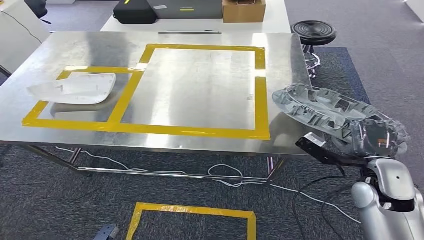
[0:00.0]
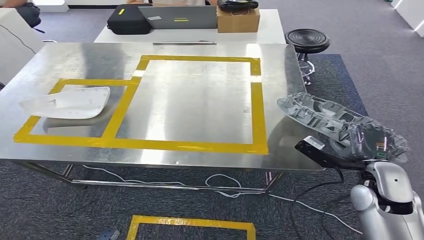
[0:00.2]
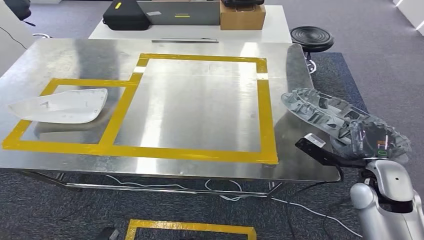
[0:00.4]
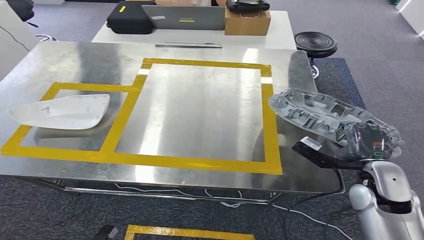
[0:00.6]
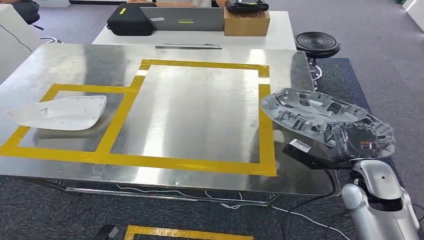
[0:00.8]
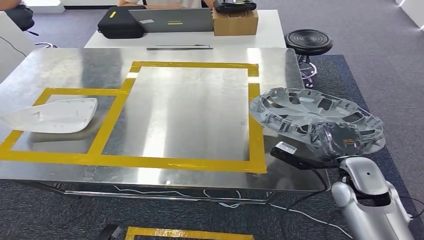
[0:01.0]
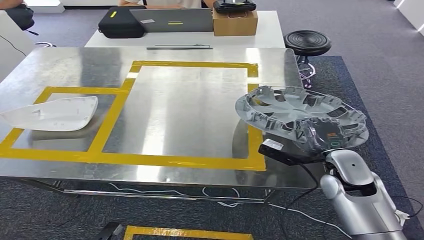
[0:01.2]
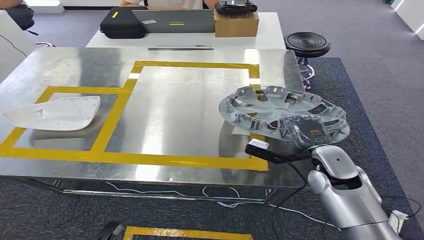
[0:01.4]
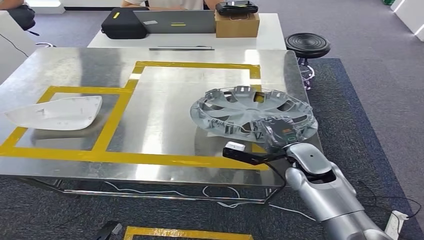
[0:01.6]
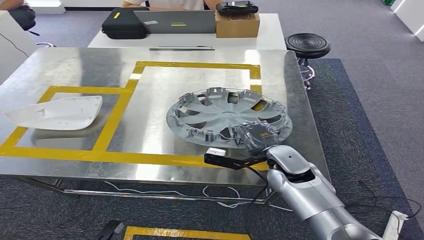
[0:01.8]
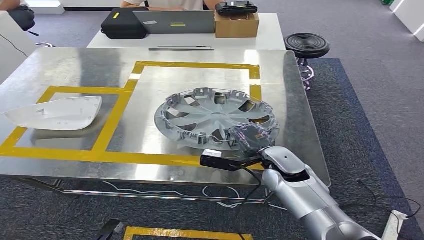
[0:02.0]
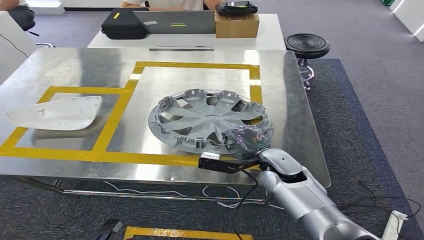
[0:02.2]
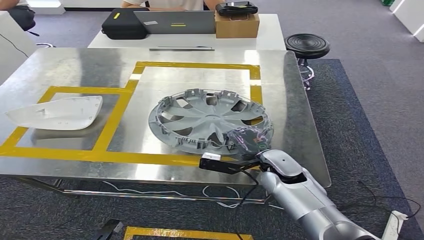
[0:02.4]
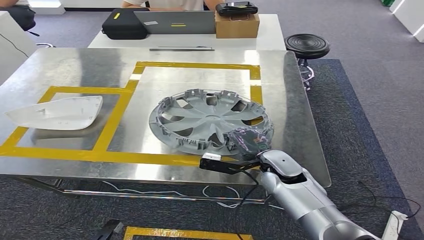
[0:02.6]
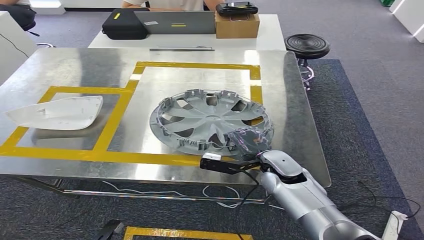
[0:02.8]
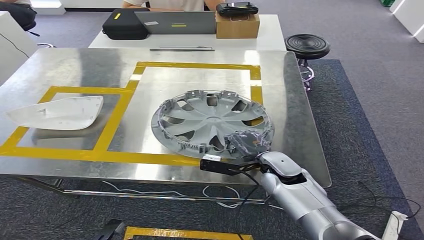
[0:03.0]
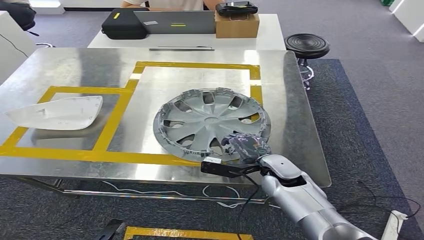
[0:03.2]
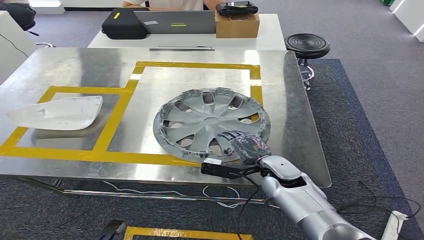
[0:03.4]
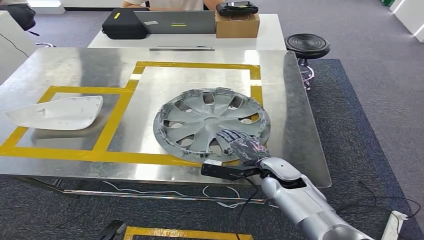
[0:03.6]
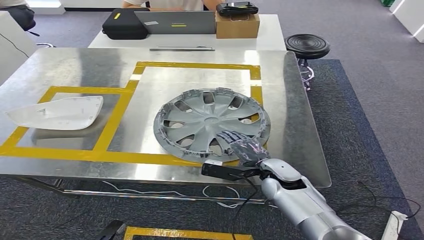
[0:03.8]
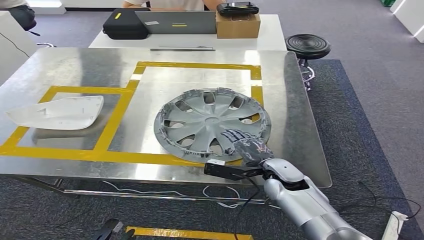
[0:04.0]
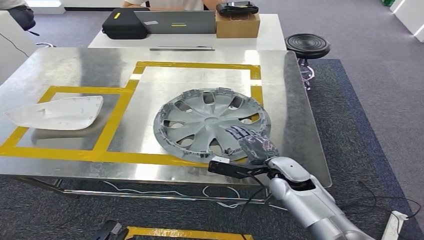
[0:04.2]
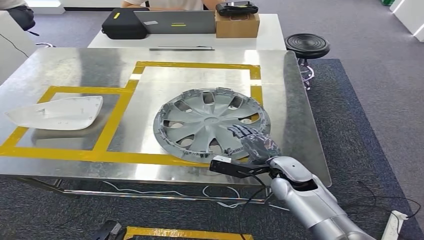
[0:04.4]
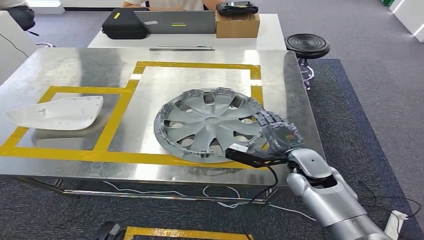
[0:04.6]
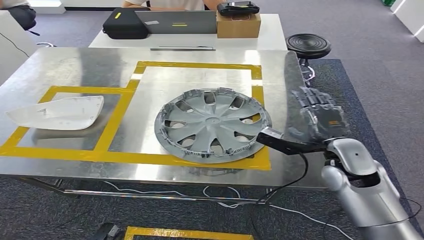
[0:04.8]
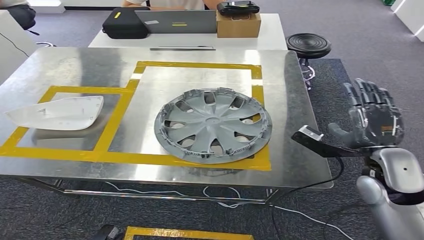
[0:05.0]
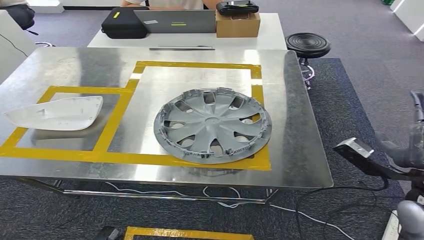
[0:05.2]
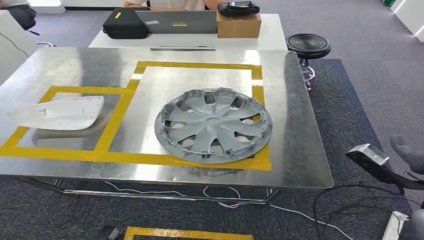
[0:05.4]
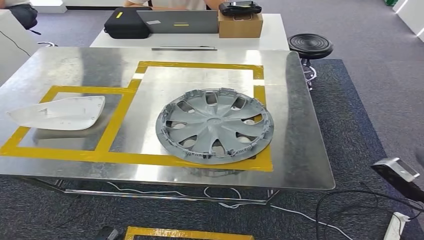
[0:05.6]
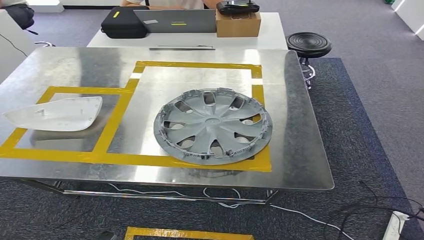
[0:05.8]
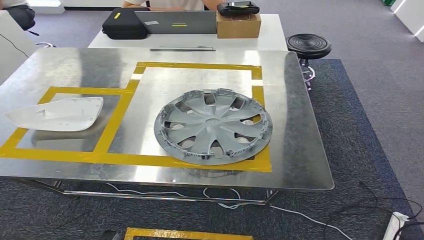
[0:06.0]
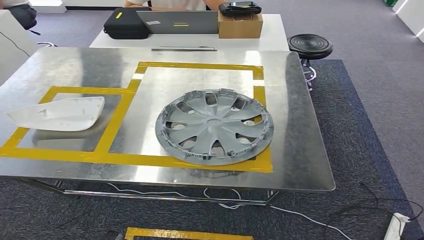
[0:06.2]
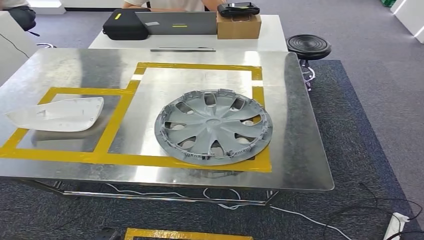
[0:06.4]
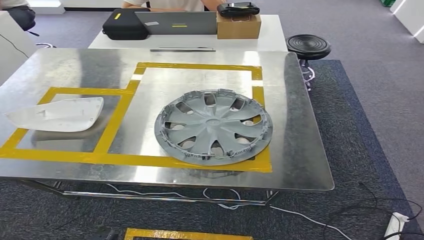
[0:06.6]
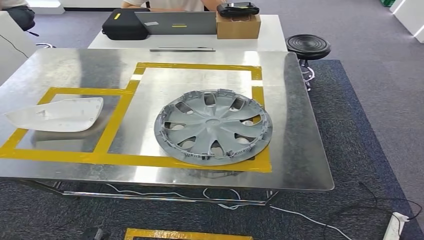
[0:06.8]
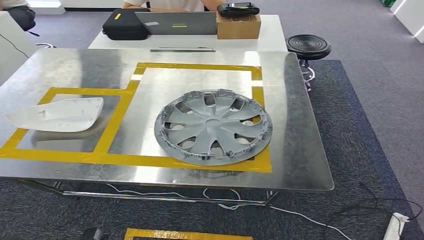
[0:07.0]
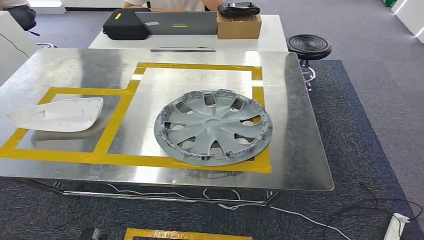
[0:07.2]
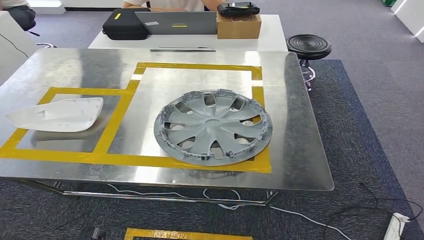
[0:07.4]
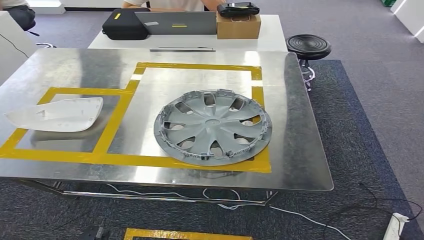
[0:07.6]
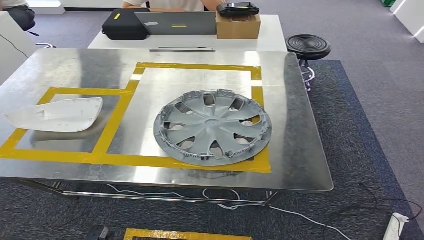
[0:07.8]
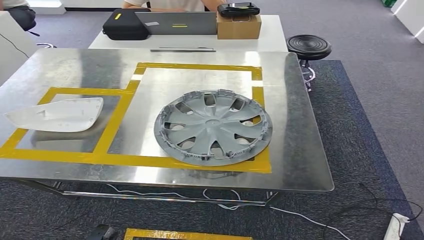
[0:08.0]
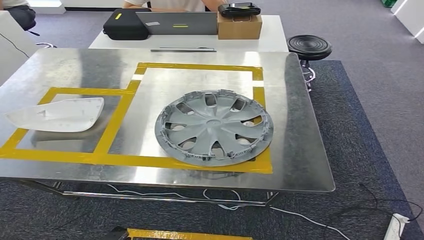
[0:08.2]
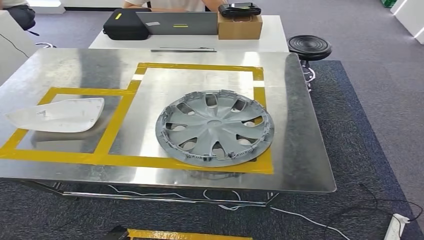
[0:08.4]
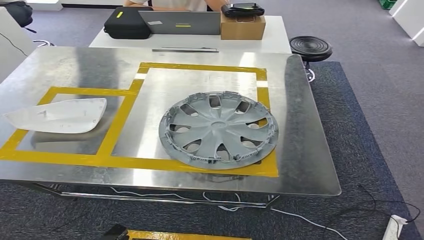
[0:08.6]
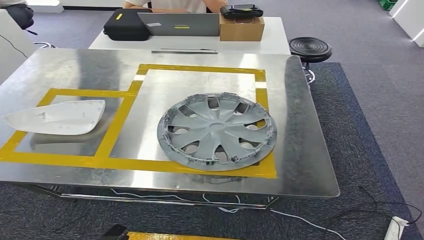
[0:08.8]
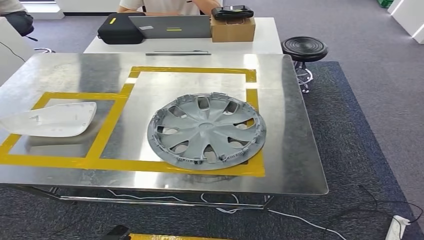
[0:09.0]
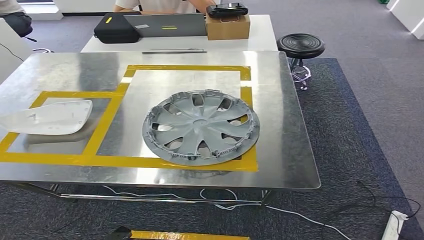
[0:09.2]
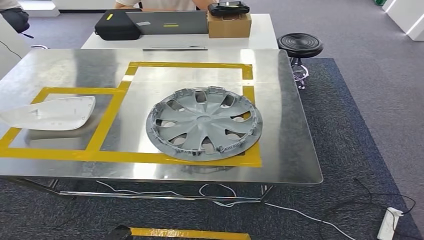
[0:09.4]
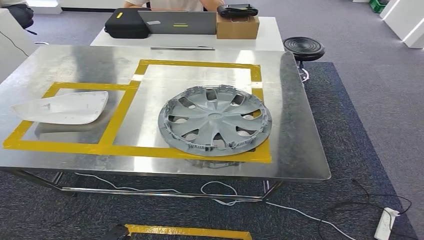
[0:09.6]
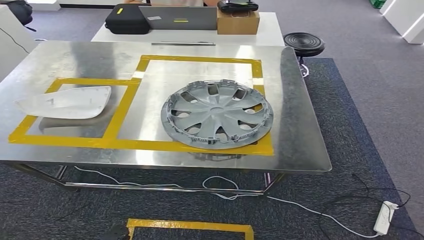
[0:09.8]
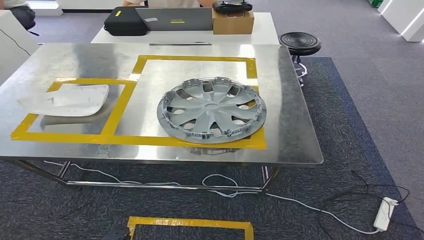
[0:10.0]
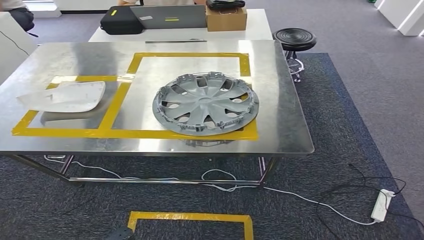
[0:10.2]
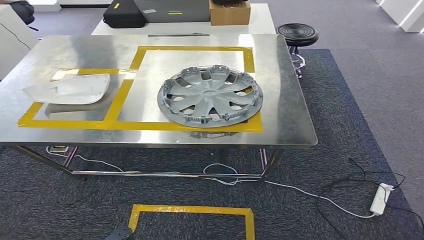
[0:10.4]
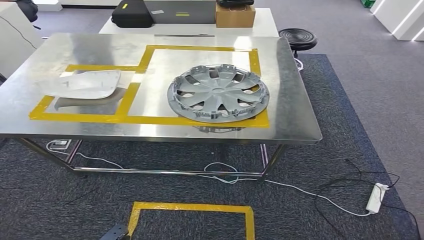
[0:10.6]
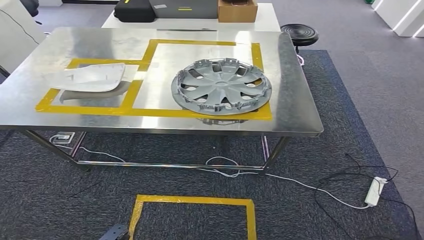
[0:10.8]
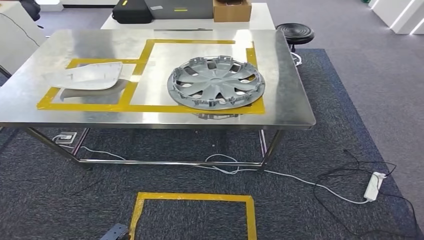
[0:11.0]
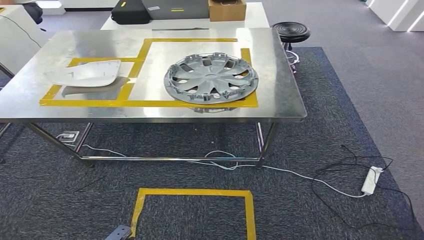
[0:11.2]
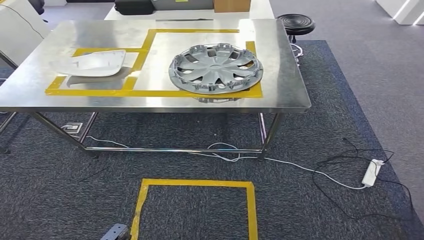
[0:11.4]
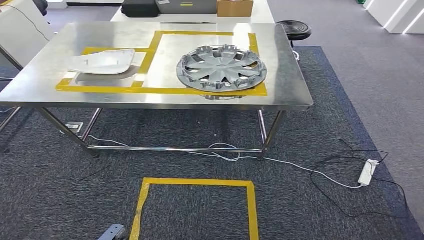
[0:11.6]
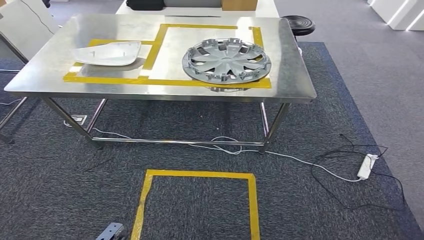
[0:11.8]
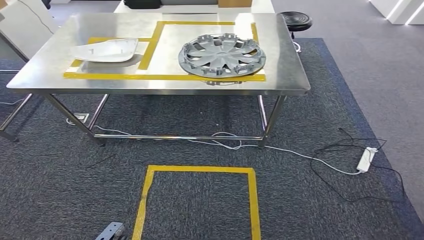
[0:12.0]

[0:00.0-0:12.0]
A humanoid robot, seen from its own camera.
Step, 0:00.0 to 0:06.2: Insert the small component into the corresponding slot on the workbench.
0:01.6 to 0:03.0: The right hand travels to the left by about 5 cm.
0:03.0 to 0:04.4: There are only small adjustments of the hands.
0:04.4 to 0:06.0: The right hand shifts some 40 cm backward, to the right and upward.
0:06.0 to 0:07.6: The right hand moves downward, about 35 cm.

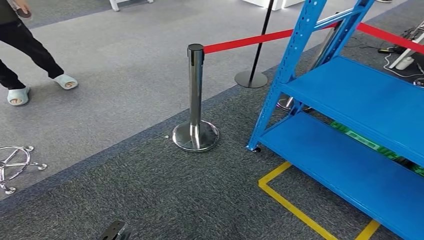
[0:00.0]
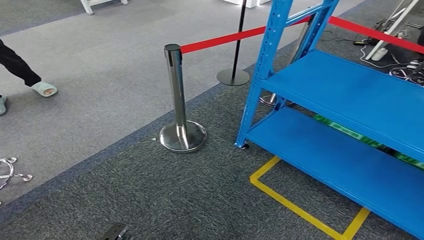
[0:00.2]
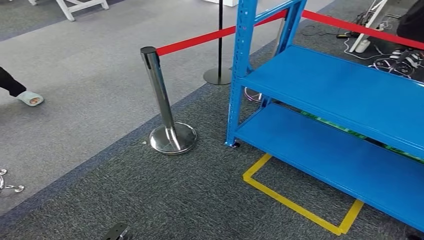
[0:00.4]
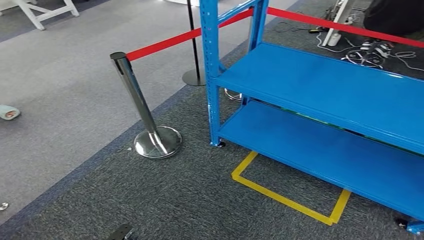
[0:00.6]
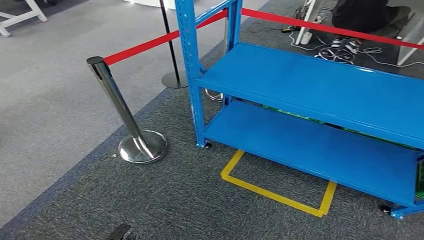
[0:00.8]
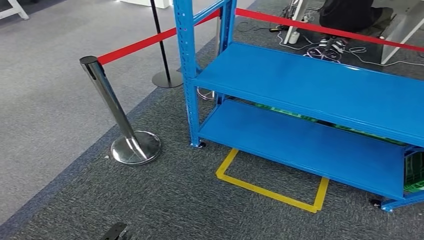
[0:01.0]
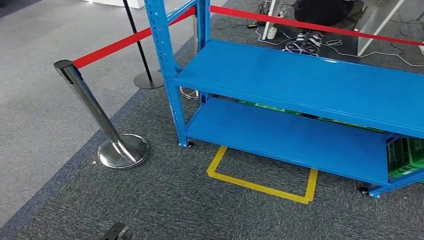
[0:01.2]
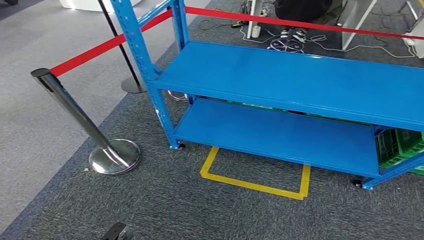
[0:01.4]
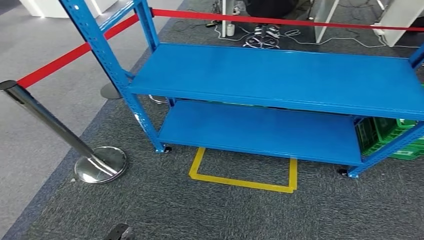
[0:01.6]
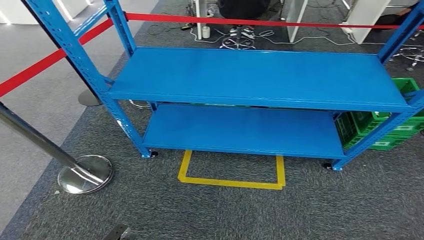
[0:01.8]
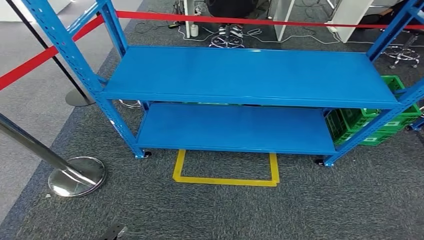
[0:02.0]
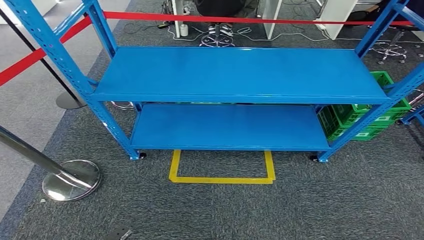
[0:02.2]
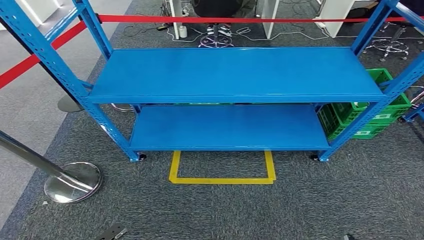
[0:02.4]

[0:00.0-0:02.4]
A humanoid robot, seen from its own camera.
Step, 0:00.0 to 0:02.4: Return to the initial position at the workbench.
